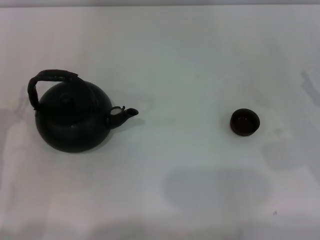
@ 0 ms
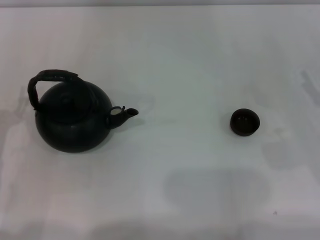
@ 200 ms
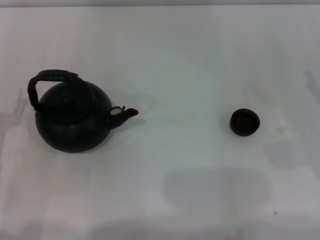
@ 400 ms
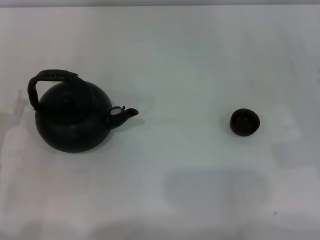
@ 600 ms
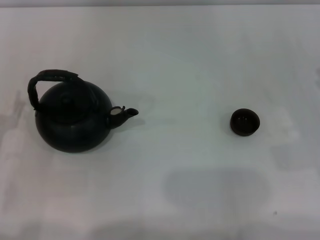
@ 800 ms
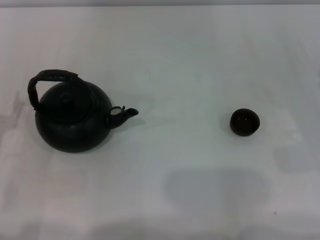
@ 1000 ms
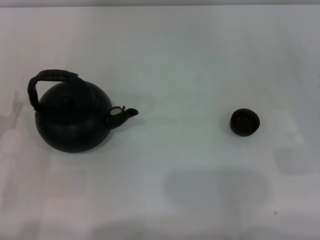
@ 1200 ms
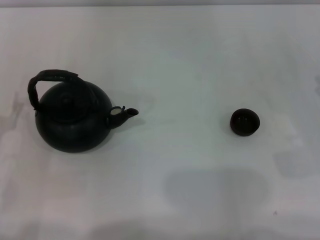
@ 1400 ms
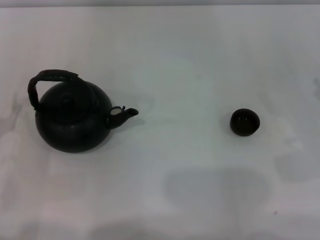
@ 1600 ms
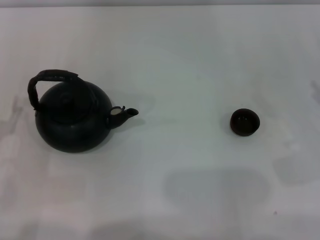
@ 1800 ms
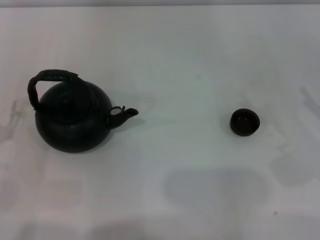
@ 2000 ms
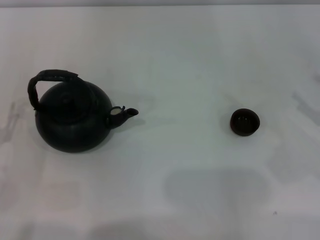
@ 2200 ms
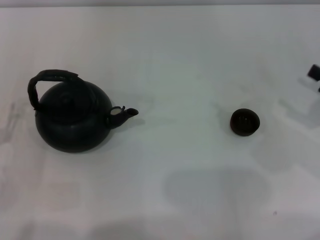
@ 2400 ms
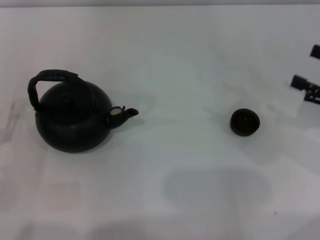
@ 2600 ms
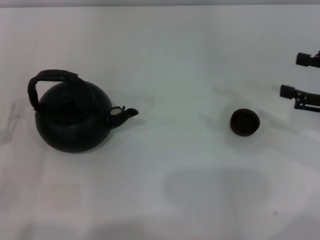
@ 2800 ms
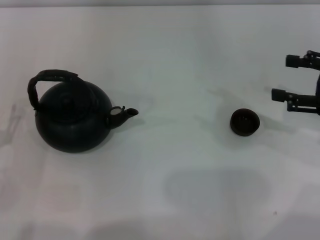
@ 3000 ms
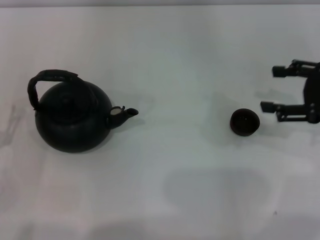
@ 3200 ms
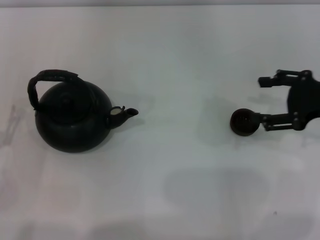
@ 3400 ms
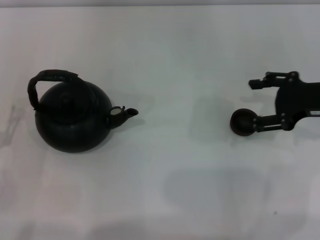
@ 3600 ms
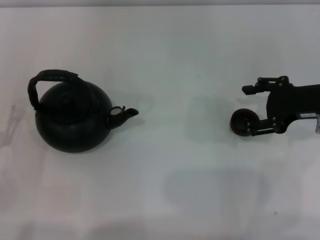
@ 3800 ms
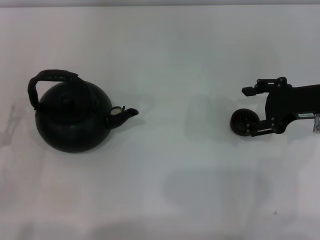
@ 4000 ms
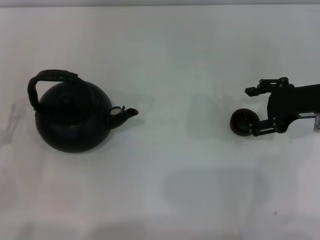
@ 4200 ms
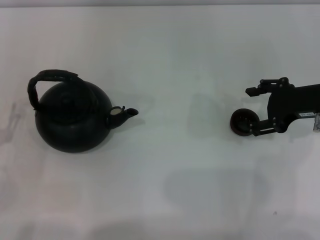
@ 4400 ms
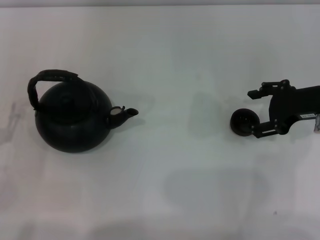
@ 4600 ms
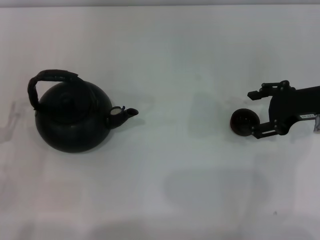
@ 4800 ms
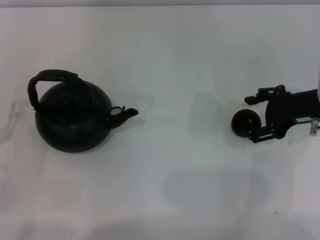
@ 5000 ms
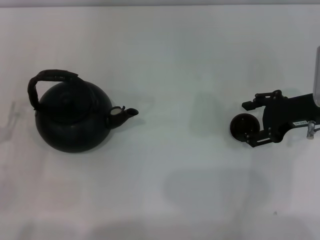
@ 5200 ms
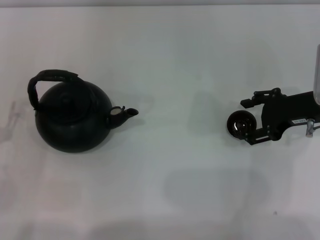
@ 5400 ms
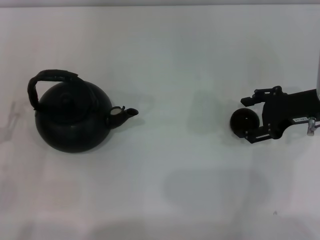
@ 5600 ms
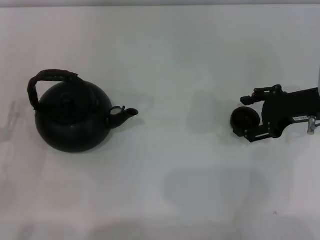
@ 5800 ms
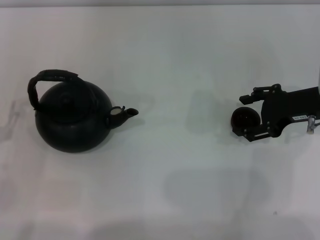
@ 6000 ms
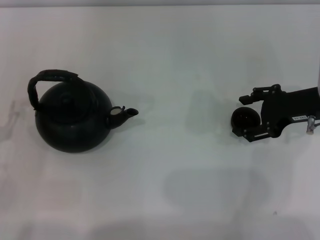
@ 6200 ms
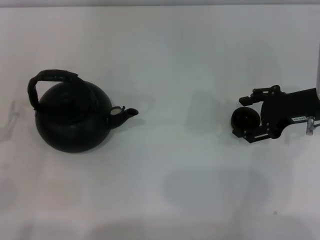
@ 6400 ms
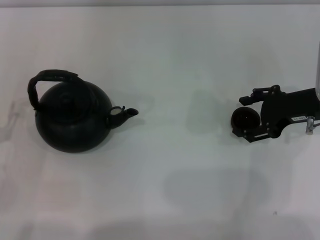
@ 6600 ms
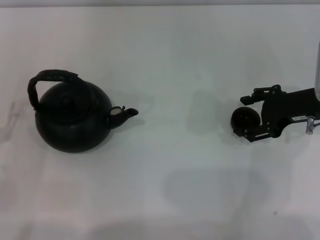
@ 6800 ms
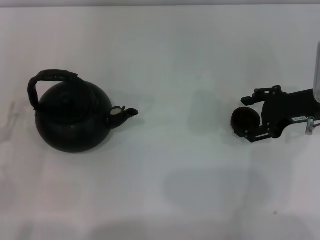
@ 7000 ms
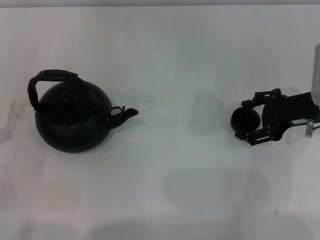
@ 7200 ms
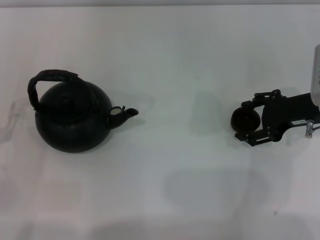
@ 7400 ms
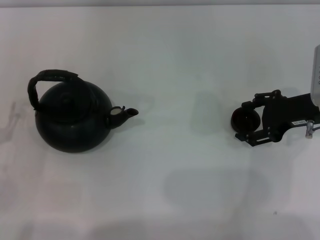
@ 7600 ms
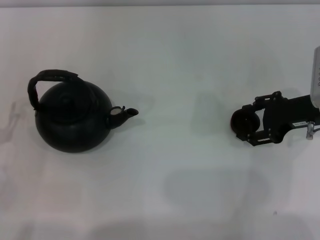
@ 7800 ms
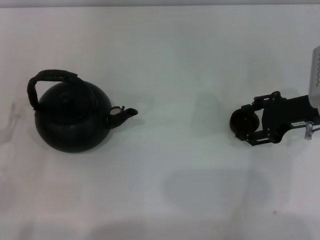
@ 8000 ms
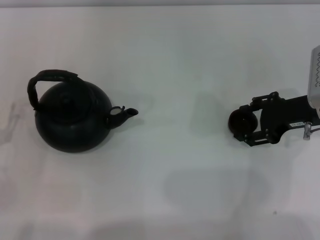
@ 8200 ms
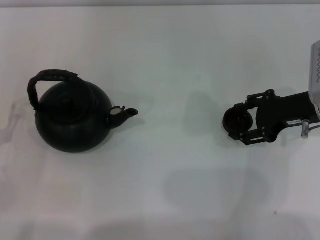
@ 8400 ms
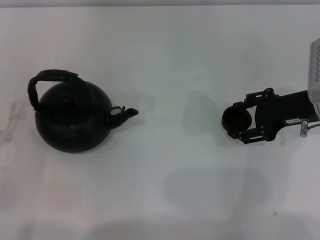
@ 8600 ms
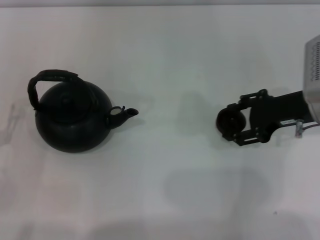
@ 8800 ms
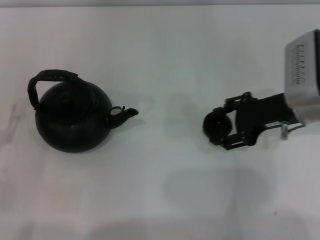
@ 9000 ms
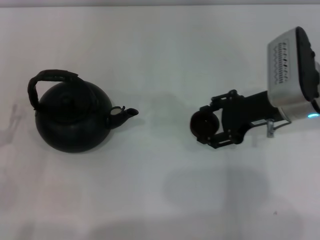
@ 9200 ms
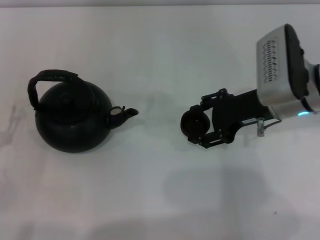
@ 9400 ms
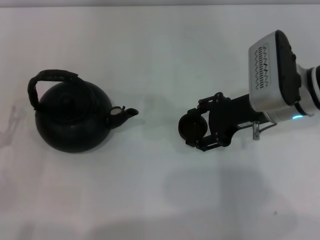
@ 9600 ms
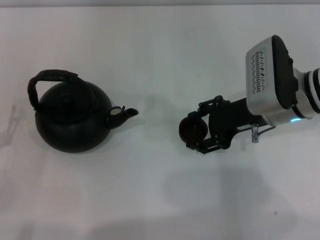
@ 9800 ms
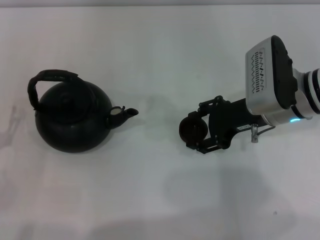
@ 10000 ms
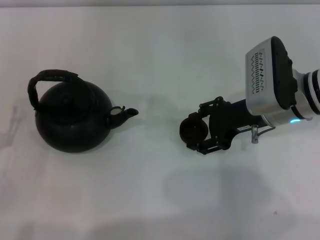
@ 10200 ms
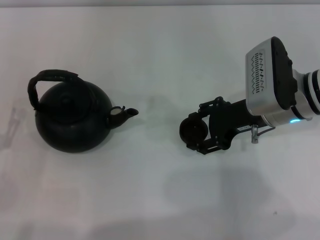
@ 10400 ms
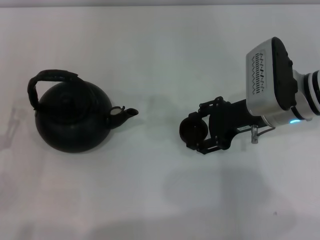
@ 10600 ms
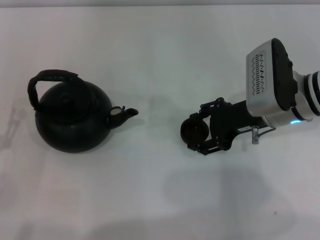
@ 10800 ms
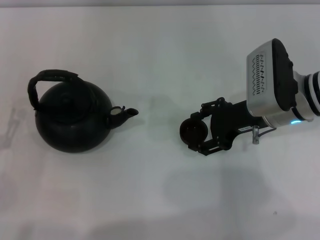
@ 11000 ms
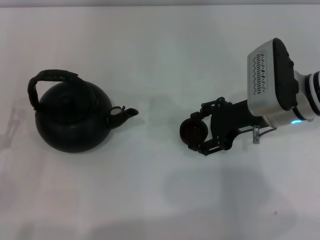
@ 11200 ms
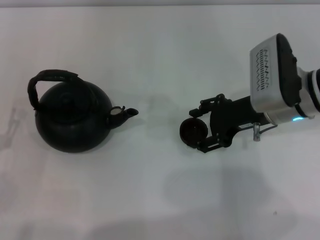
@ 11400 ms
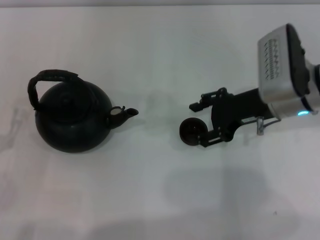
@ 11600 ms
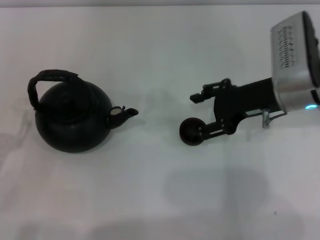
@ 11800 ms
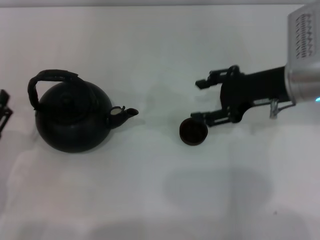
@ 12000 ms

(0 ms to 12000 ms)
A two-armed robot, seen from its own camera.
Task of the whole recording: Grasp the handle of the teapot with one hand and pour tea into the teacup.
Step, 0 ms - 8600 ms: Pick up the teacup with the right gripper.
Step, 8800 ms - 11800 ms: Place the teacup in the center of view with the right gripper.
1600 ms - 3000 ms: The right gripper moves upward and forward, about 10 cm.
3000 ms - 4400 ms: The right gripper is displaced to the left by some 5 cm.
4400 ms - 6000 ms: There are only small adjustments of the grippers.
6000 ms - 7600 ms: The two grippers keep their place.
7600 ms - 9000 ms: The right gripper closes up.
9000 ms - 12000 ms: There are only small adjustments of the grippers.

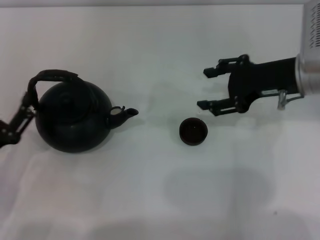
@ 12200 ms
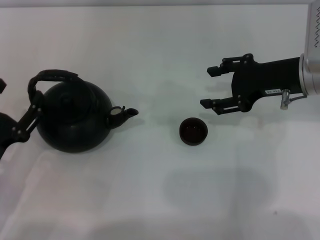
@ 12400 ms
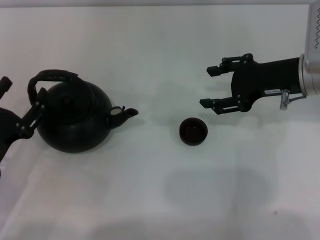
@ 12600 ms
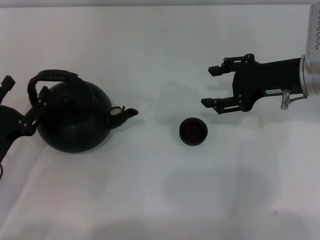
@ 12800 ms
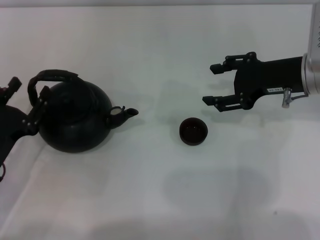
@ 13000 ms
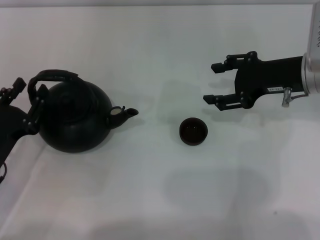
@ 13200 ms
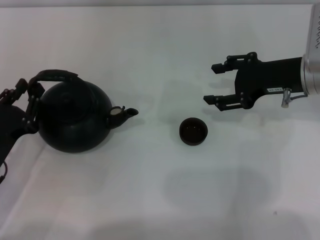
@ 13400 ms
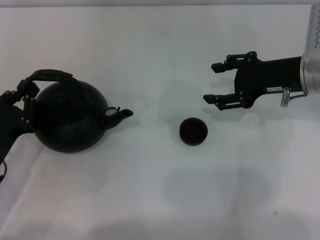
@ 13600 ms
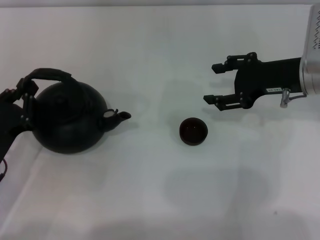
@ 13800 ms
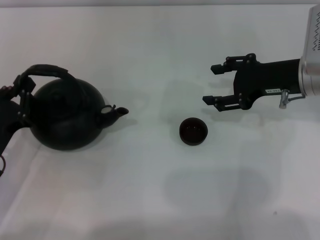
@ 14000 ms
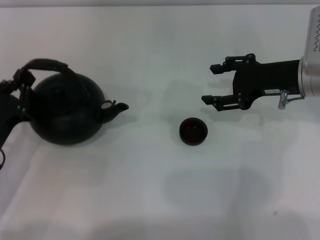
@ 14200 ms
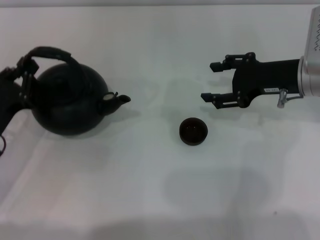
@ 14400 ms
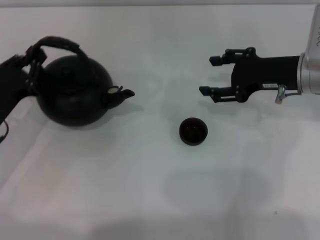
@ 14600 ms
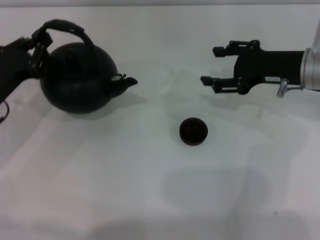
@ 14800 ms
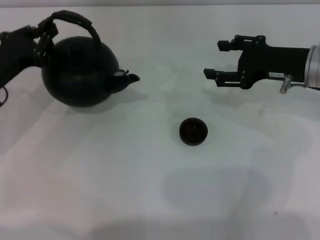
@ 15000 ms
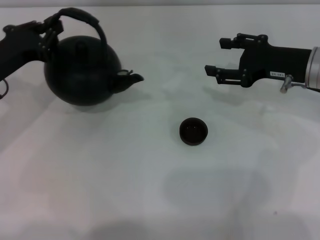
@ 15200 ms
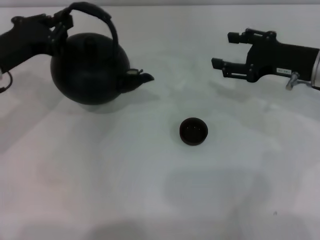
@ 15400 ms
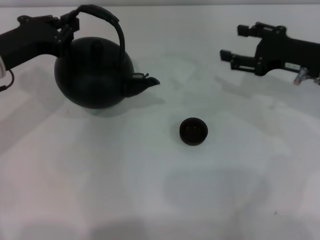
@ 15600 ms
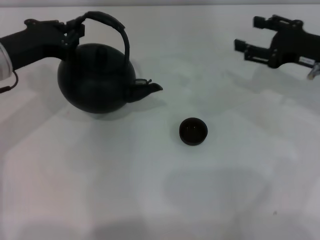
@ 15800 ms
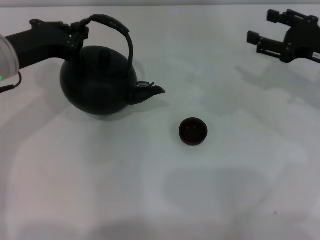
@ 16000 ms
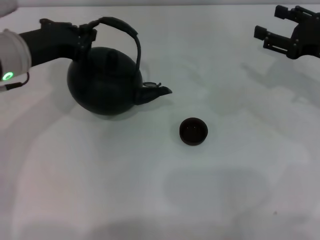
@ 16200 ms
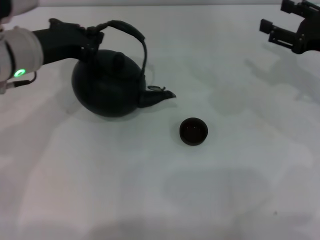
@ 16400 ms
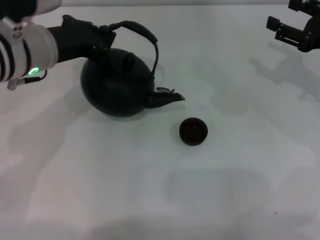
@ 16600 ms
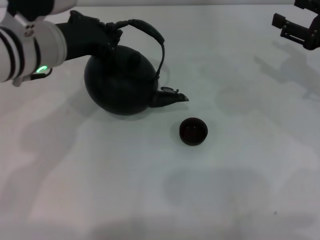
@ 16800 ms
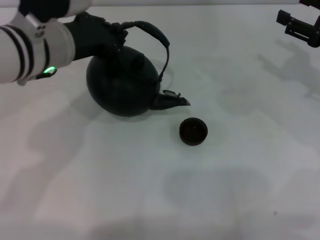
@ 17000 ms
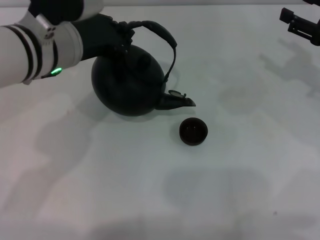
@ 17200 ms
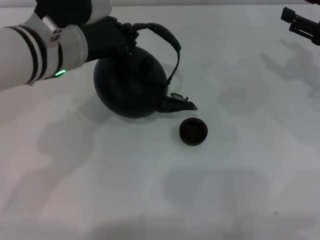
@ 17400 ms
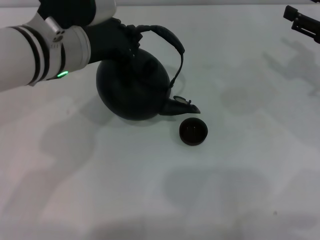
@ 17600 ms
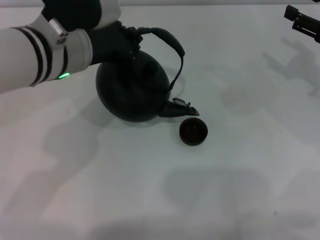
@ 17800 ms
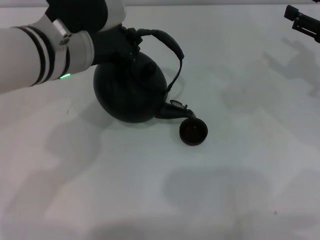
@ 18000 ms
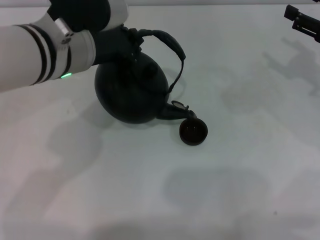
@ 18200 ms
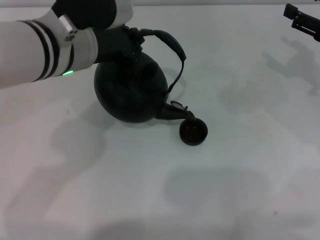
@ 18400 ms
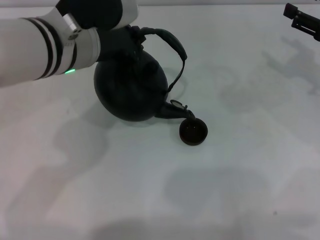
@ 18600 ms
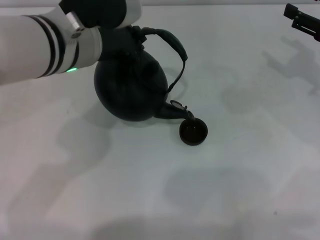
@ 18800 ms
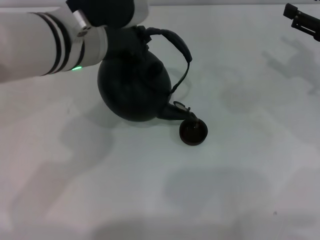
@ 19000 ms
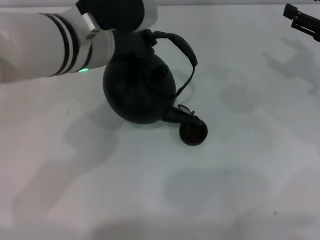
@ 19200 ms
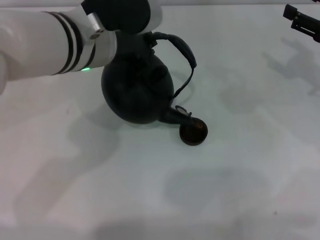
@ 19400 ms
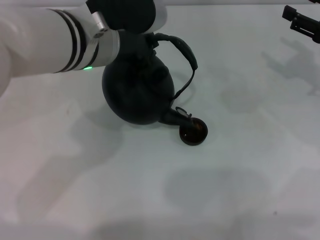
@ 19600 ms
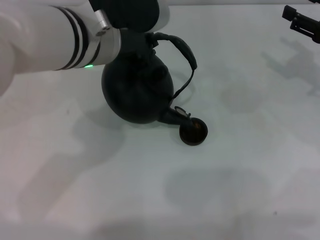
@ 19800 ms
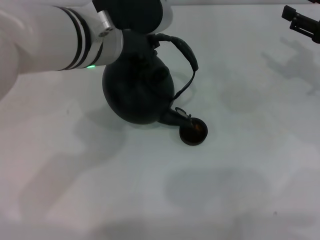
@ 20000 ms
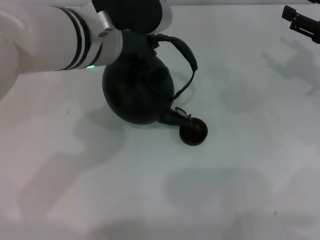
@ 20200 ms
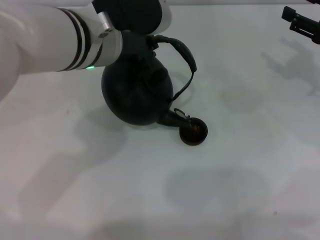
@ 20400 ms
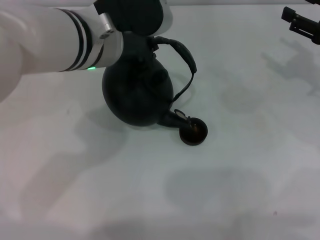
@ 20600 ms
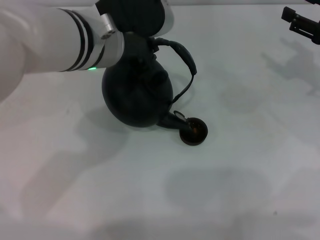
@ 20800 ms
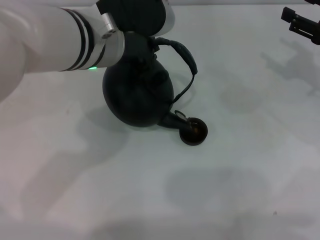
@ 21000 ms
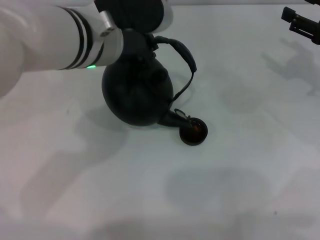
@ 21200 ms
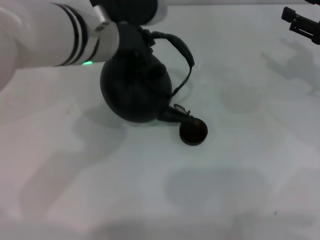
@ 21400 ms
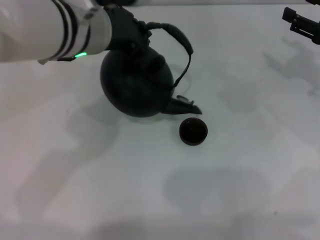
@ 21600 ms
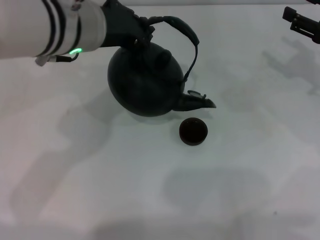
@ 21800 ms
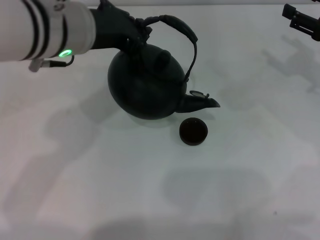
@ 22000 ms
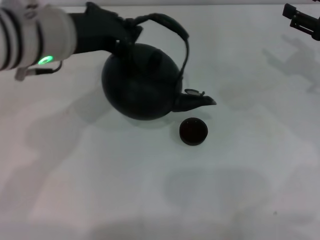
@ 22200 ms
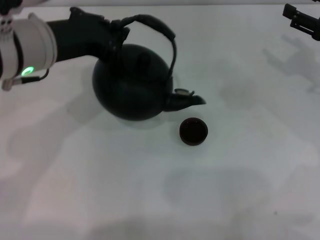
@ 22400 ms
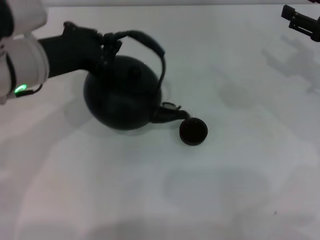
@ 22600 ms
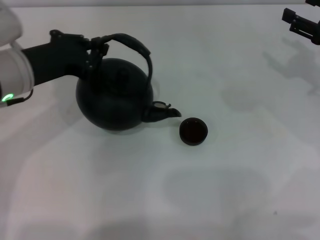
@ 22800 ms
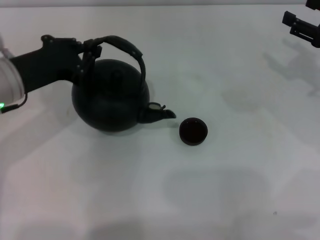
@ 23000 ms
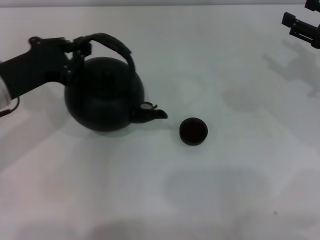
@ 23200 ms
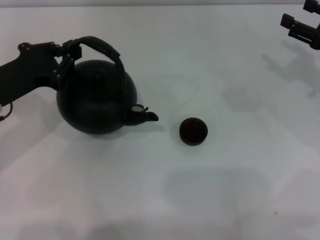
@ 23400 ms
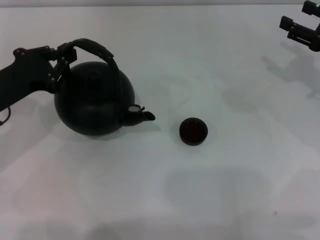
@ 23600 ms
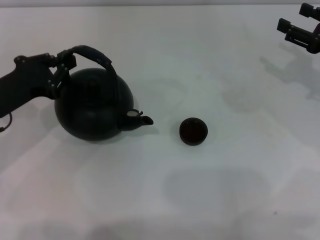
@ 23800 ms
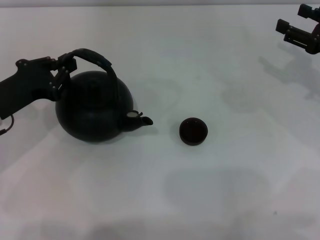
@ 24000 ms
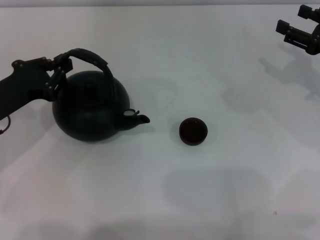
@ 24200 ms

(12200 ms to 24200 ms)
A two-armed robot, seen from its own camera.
Task of the whole recording: Grasp the handle of the teapot with one hand and pour tea into the teacup.
Step, 12200 ms - 14800 ms: Pick up the teapot with the left gripper.
Step, 15000 ms - 22000 ms: Pour tea into the teacup with the left gripper.
12200 ms - 13800 ms: The left gripper closes its fingers.
13800 ms - 15200 ms: The left gripper heads forward and upward, covering approximately 15 cm.
15200 ms - 16600 ms: The right gripper heads to the right, covering some 5 cm. The left gripper shifts roughly 10 cm to the right and upward.
16600 ms - 18200 ms: The left gripper shifts approximately 5 cm to the right.
18200 ms - 19800 ms: There are only small adjustments of the grippers.
19800 ms - 21200 ms: Neither gripper changes place.
21200 ms - 22600 ms: The left gripper shifts approximately 10 cm to the left.
22600 ms - 24200 ms: The left gripper travels downward and to the left by roughly 15 cm.
